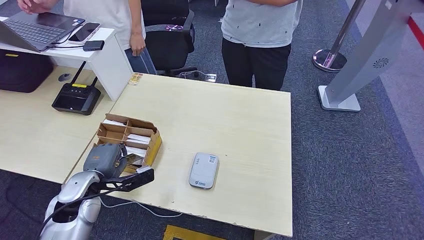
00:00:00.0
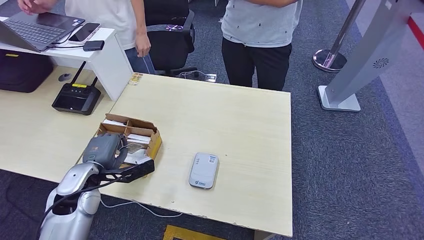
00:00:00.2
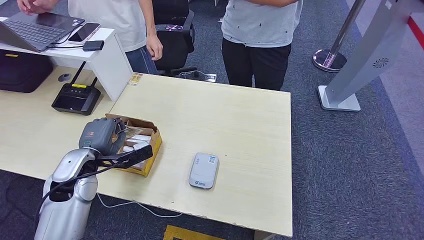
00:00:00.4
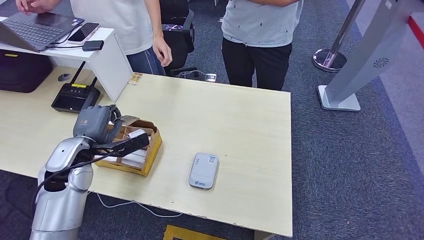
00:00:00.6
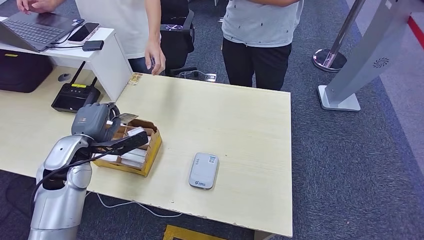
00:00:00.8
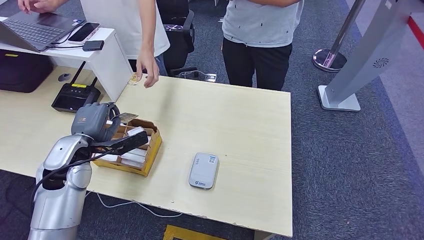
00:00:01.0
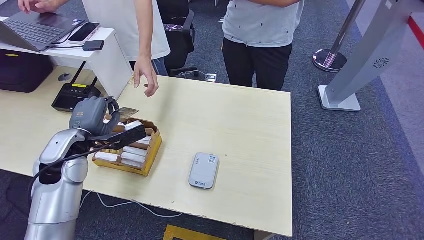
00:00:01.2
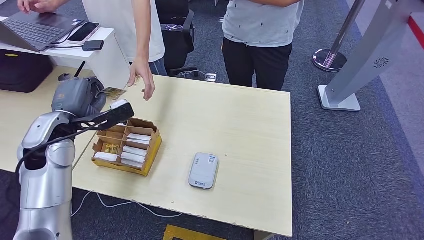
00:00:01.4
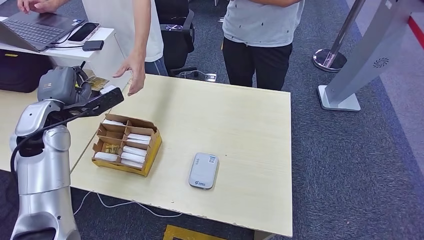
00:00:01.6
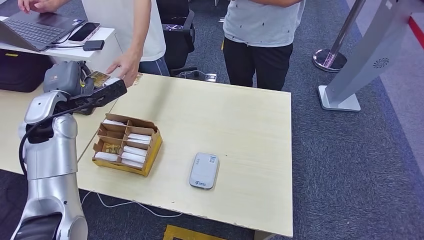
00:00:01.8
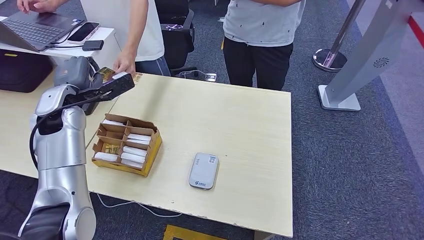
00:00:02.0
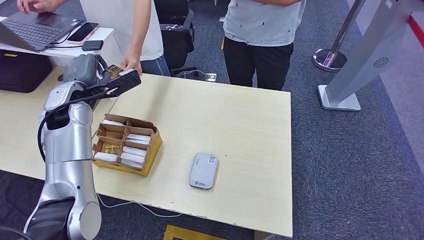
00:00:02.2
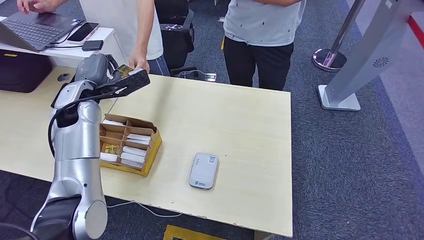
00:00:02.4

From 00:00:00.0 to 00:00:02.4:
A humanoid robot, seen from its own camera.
Step, from 00:00:01.2 to 00:00:02.4: Hand the room key to the person.
From 00:00:00.0 to 00:00:01.2: The left hand travels upward and forward by roughly 10 cm.
From 00:00:01.2 to 00:00:02.4: The left hand goes roughly 10 cm forward and upward.

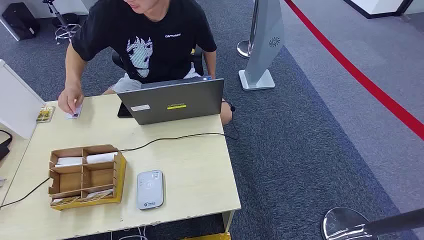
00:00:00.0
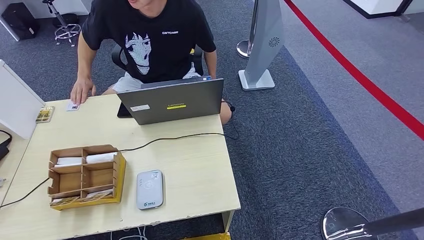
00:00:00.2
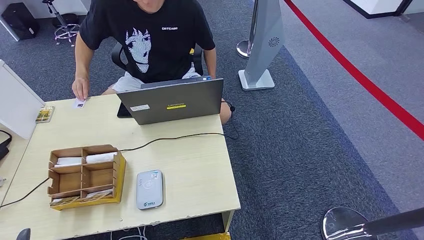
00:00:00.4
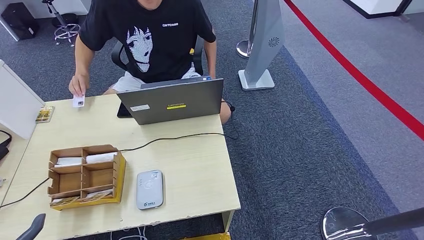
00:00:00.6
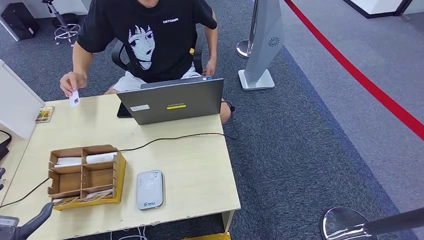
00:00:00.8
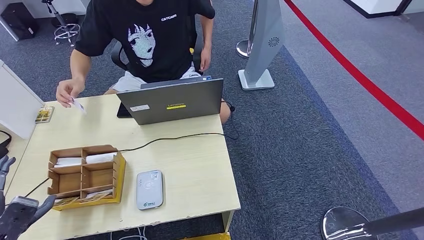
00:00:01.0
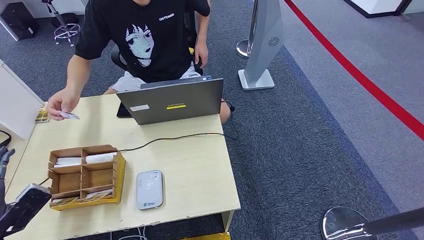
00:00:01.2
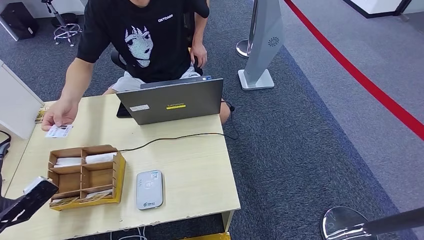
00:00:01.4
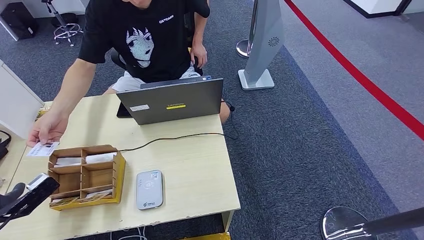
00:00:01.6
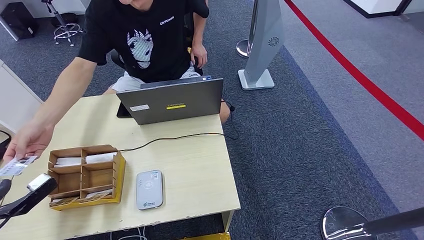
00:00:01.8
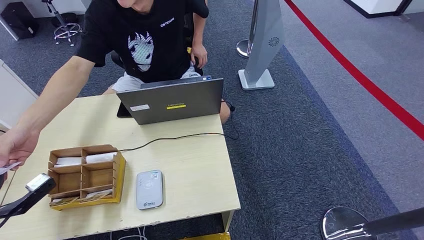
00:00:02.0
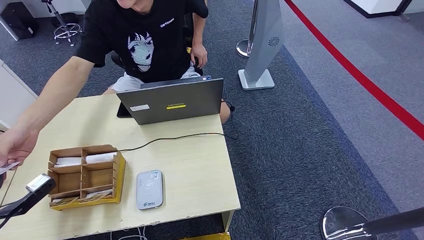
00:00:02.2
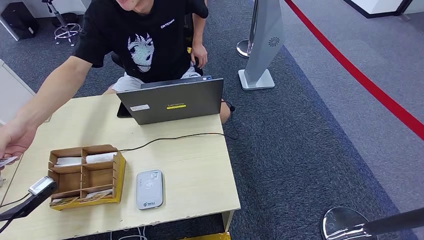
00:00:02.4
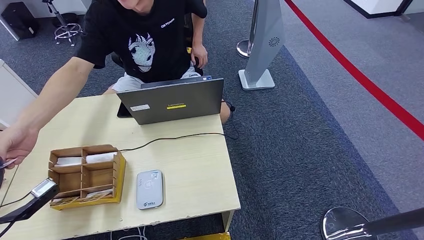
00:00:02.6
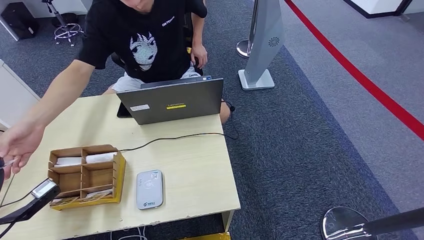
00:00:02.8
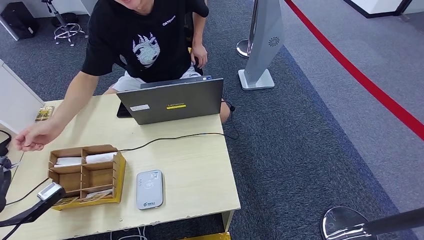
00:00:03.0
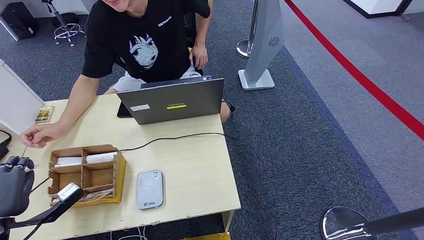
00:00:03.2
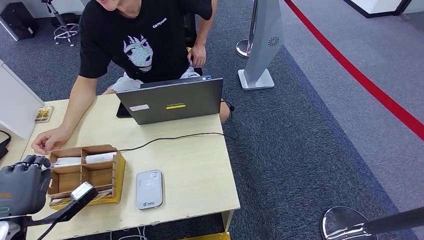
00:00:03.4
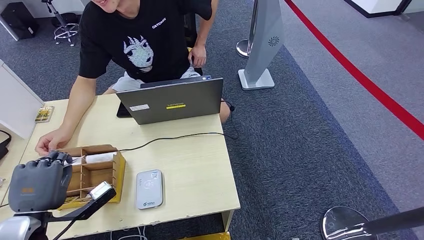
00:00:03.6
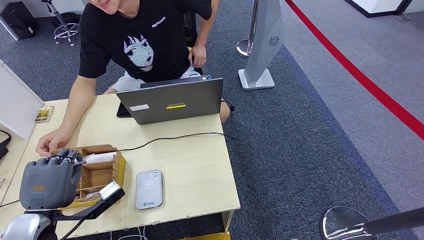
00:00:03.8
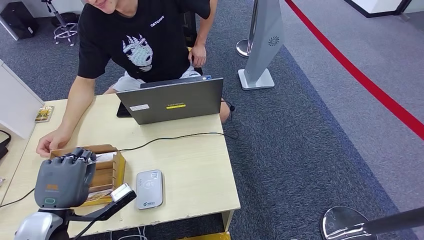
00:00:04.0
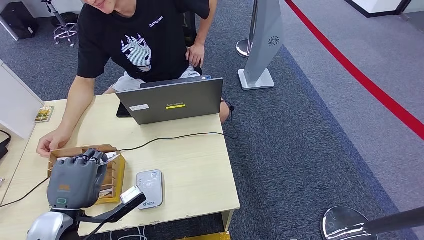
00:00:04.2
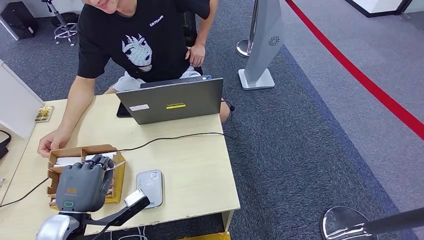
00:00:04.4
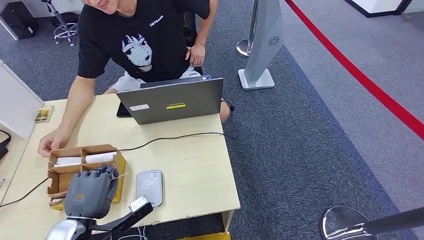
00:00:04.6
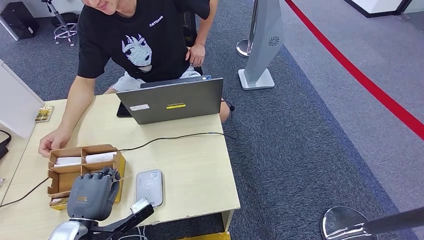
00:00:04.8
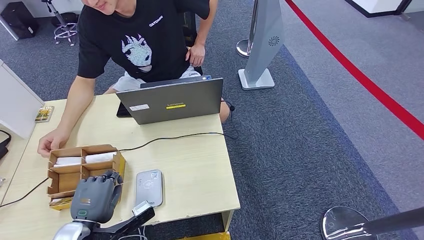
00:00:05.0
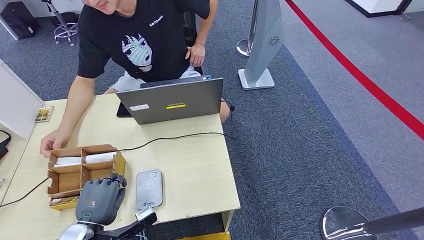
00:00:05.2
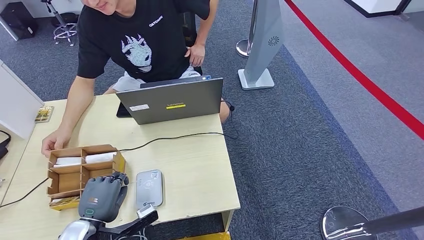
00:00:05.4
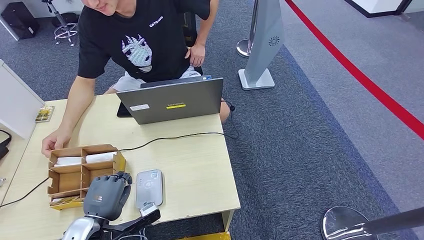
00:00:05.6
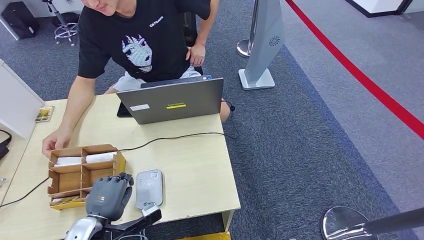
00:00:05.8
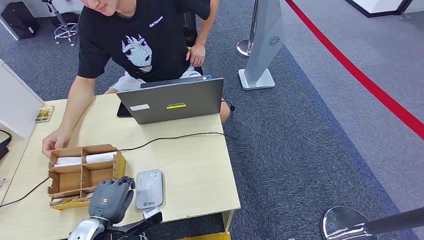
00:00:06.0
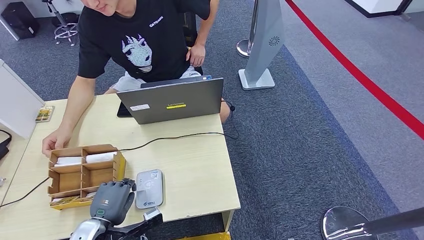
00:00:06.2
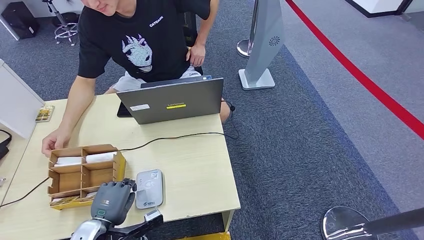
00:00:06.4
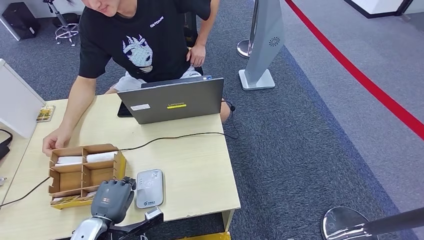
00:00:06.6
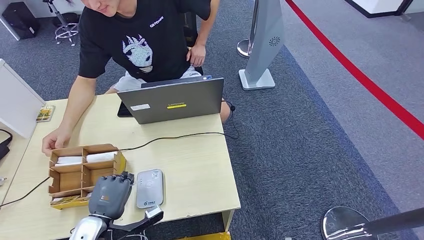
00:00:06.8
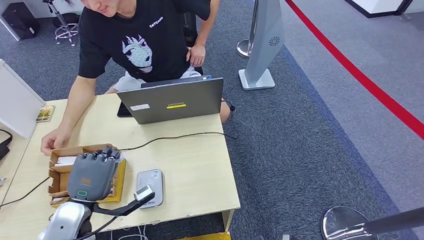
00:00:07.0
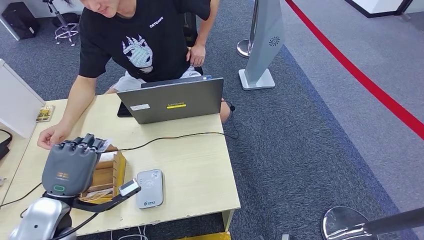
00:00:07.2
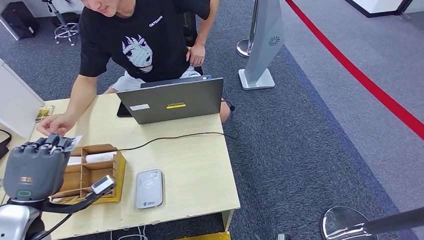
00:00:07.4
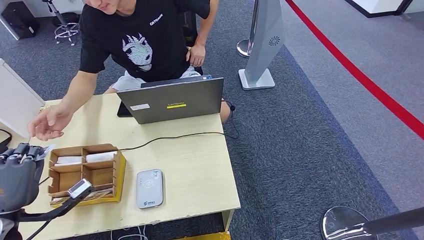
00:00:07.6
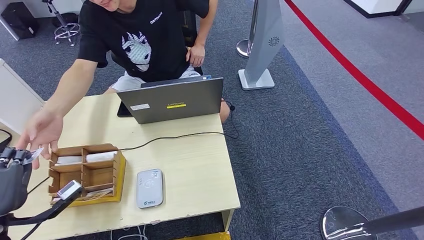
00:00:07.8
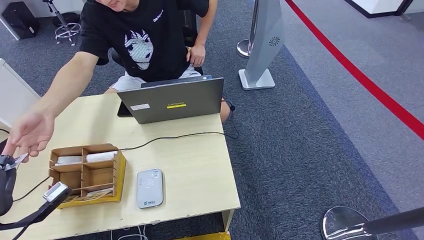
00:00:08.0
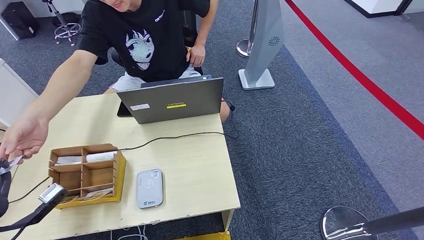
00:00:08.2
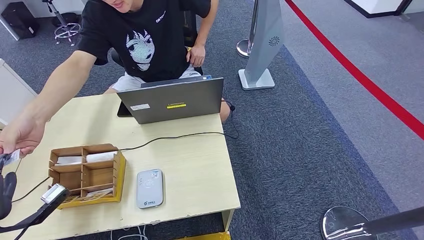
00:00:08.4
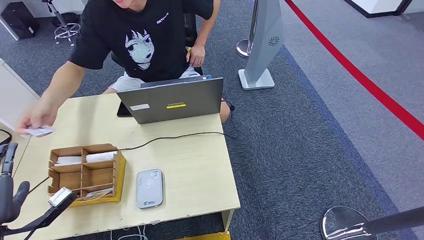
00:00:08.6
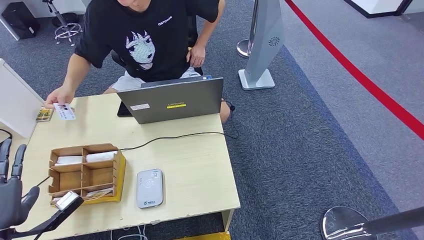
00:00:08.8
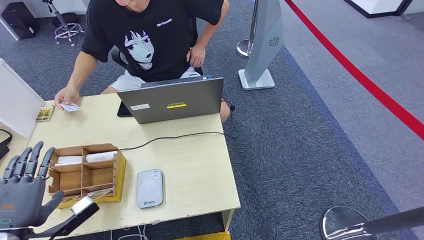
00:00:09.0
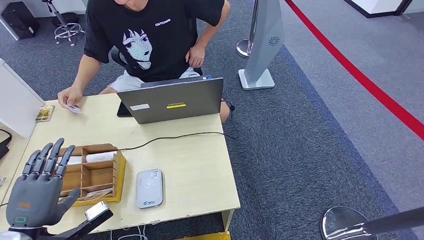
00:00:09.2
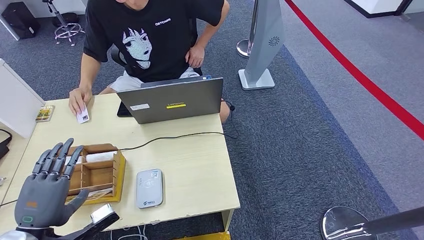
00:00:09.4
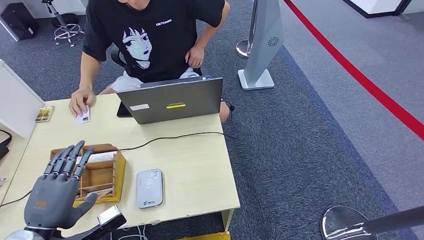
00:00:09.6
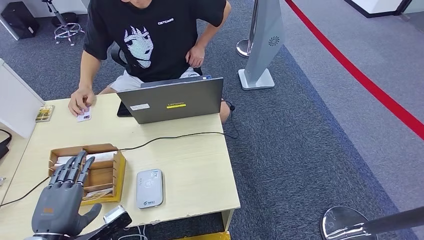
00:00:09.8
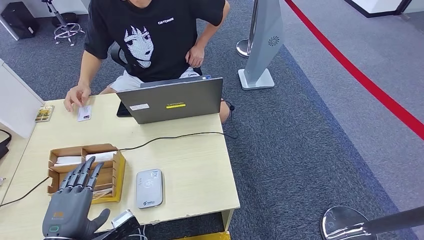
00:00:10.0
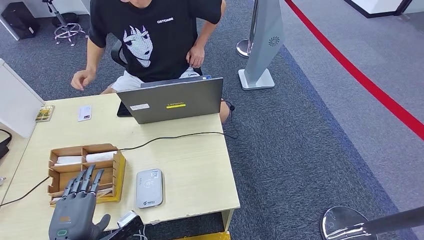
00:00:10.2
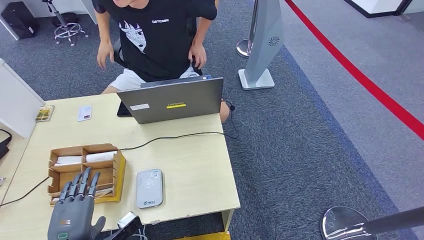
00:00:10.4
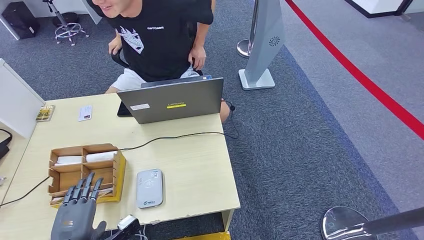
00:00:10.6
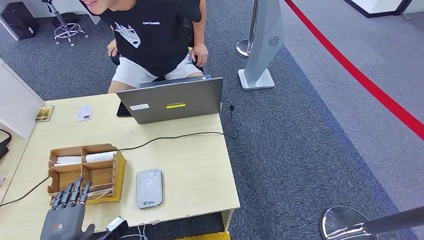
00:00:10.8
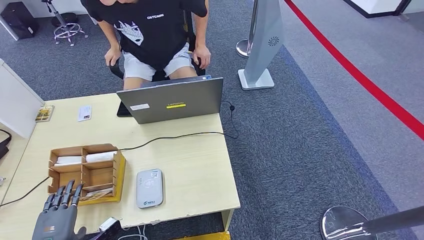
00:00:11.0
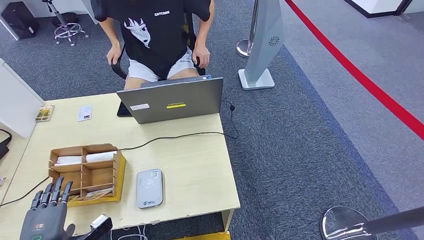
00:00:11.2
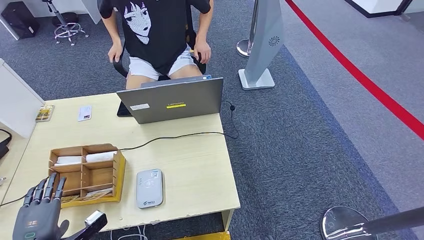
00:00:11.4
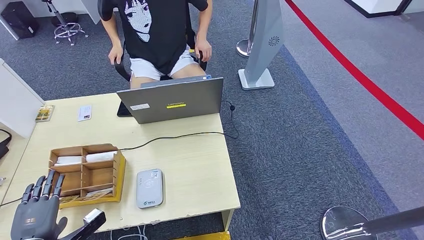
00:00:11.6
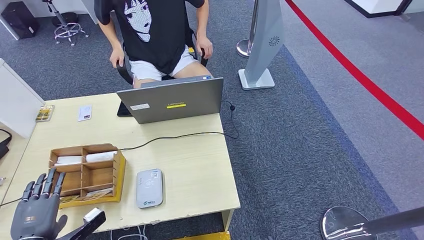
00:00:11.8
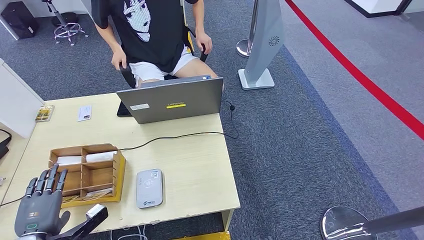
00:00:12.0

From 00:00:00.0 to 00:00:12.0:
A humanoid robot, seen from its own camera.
Step, from 00:00:00.0 to 00:00:02.6: Take the ID card from the person's hand.
Step, from 00:00:02.8 to 00:00:06.6: Place the ID card on the card reader.
Step, from 00:00:07.0 to 00:00:09.4: Hand the ID card to the person.
From 00:00:03.0 to 00:00:04.4: The left hand travels to the right by about 15 cm.
From 00:00:04.4 to 00:00:06.0: The left hand goes some 10 cm downward.
From 00:00:06.0 to 00:00:07.6: The left hand shifts roughly 15 cm upward and to the left.
From 00:00:07.6 to 00:00:09.0: The hands make only small movements.
From 00:00:09.0 to 00:00:10.4: The left hand moves to the right, approximately 10 cm.
From 00:00:10.4 to 00:00:12.0: The left hand travels to the left by some 10 cm.

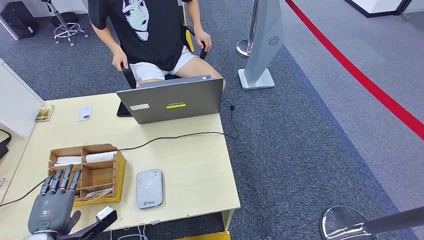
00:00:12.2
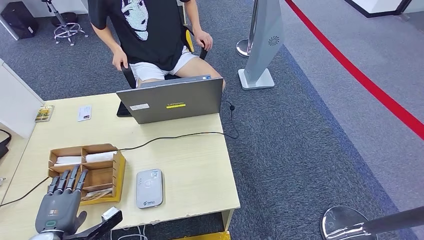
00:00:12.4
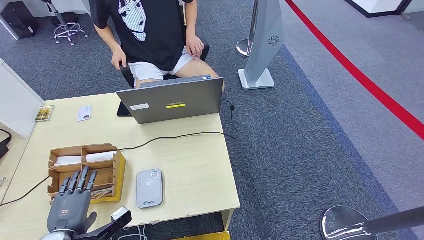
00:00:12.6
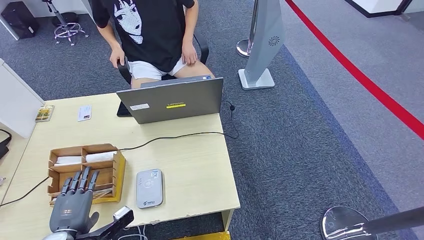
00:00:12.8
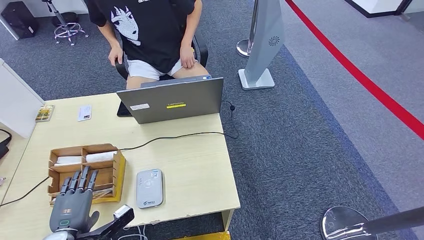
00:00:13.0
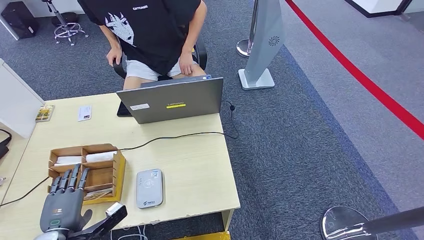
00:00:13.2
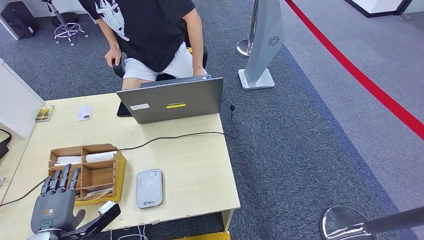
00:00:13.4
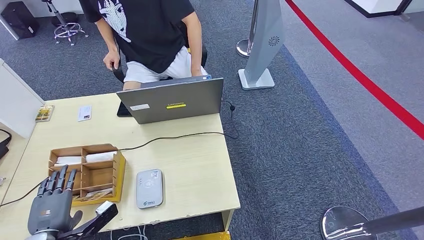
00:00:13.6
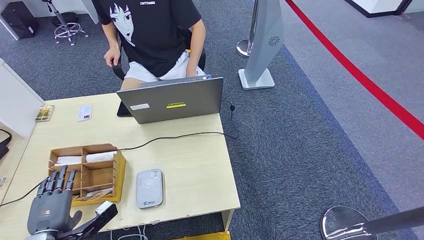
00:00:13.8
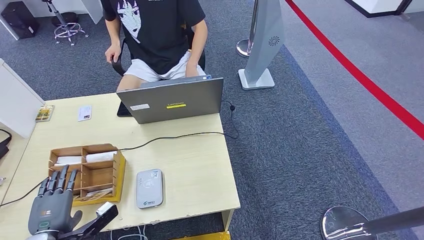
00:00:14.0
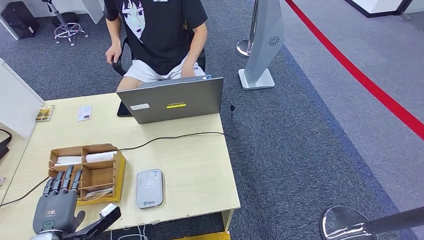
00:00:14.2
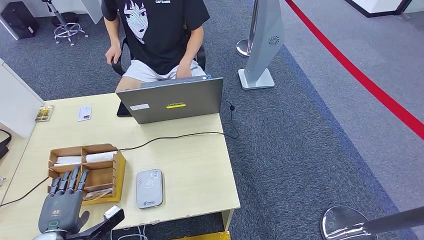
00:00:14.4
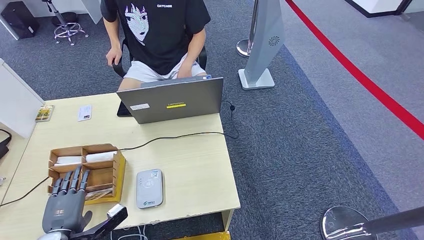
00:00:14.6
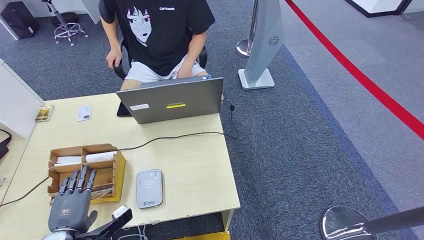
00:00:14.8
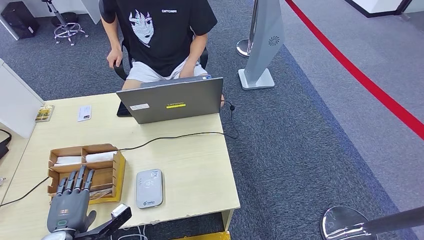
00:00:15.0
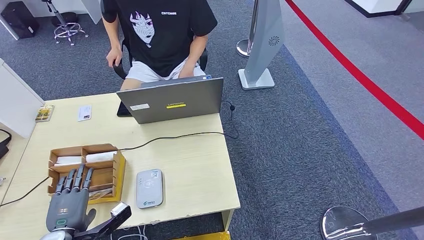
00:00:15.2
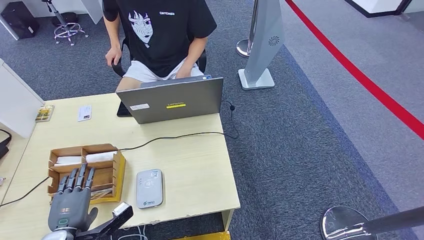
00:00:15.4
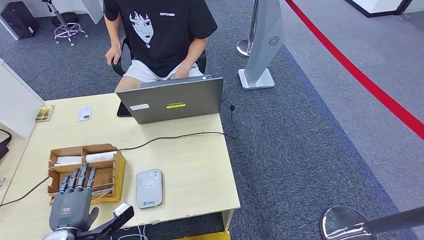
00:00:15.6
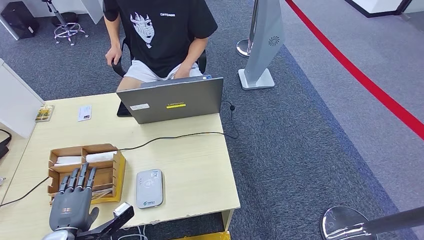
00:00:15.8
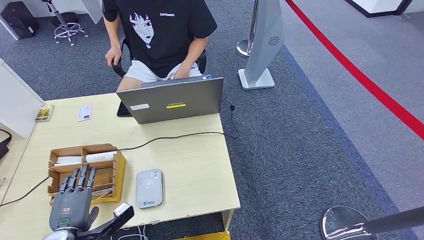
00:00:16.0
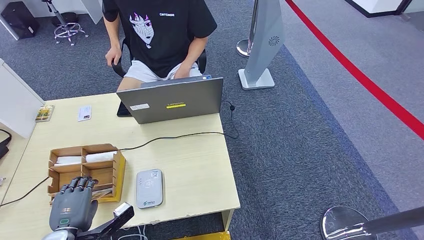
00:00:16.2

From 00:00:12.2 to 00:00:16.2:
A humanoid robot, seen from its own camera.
From 00:00:12.2 to 00:00:14.8: There are only small adjustments of the hands.
From 00:00:14.8 to 00:00:16.2: The two hands keep their place.
